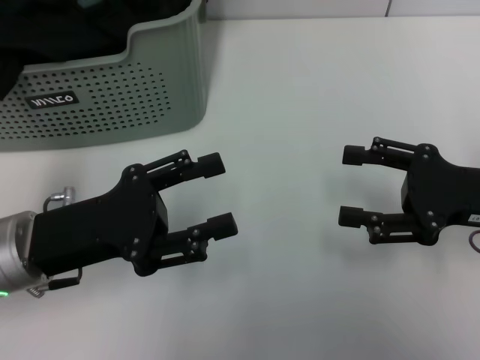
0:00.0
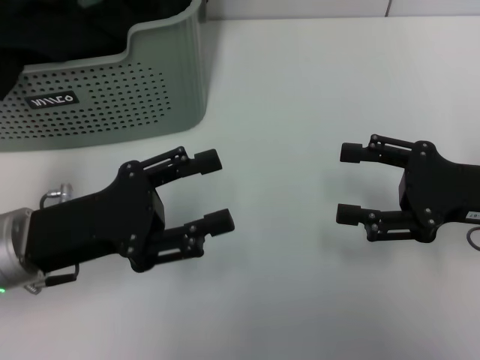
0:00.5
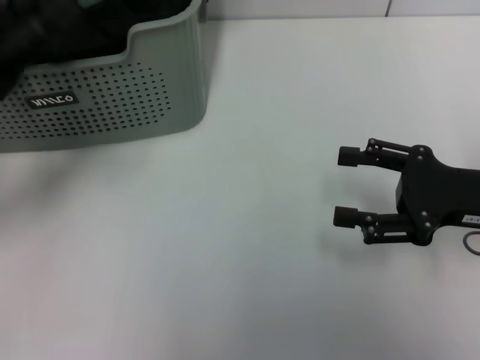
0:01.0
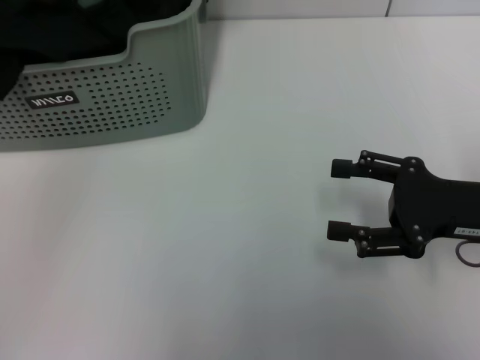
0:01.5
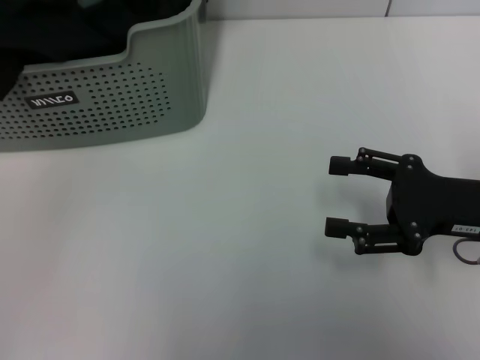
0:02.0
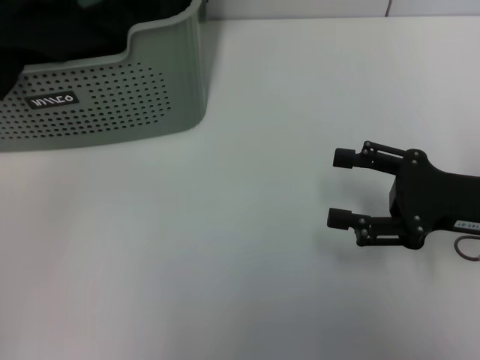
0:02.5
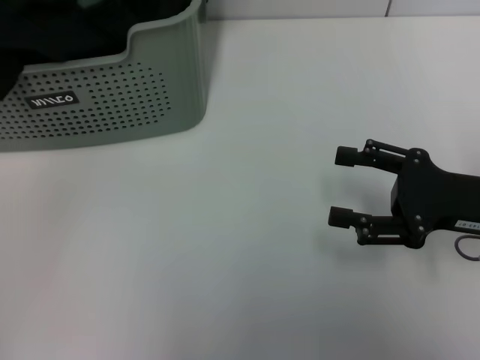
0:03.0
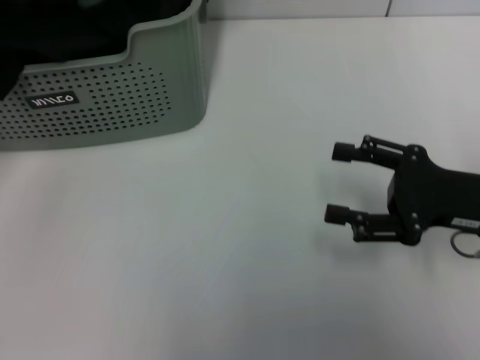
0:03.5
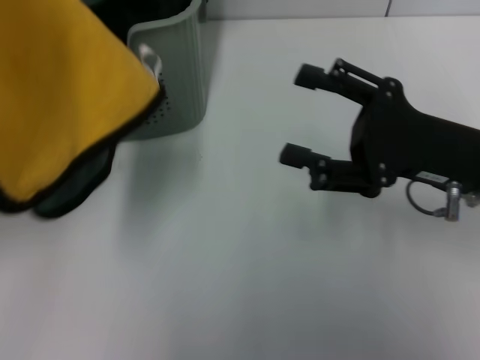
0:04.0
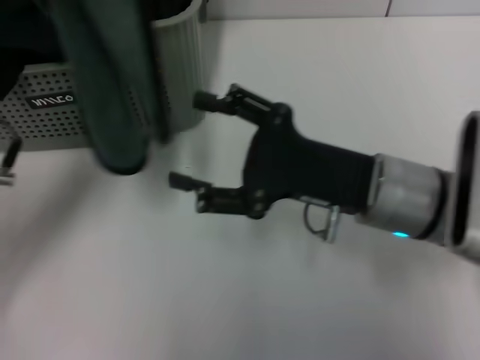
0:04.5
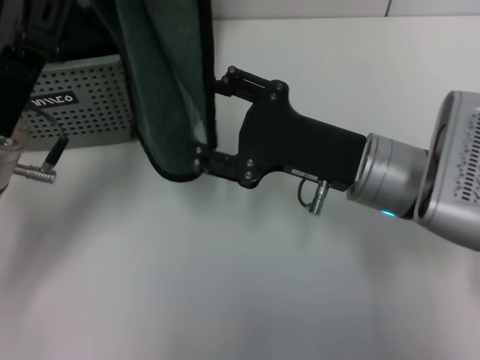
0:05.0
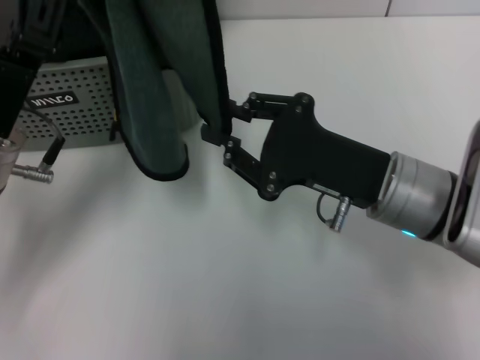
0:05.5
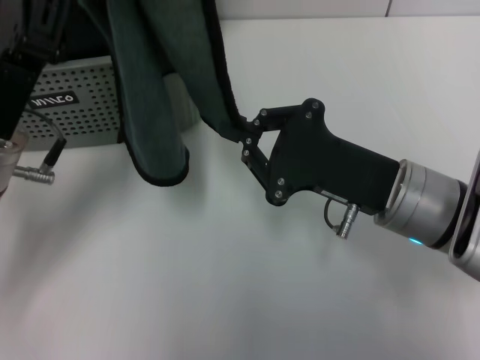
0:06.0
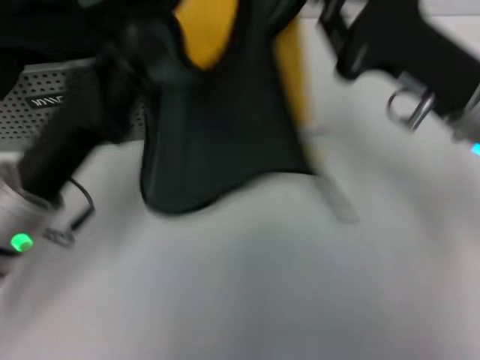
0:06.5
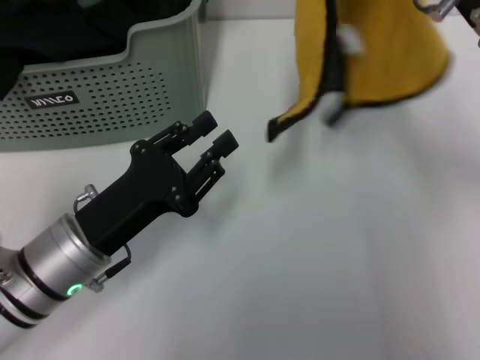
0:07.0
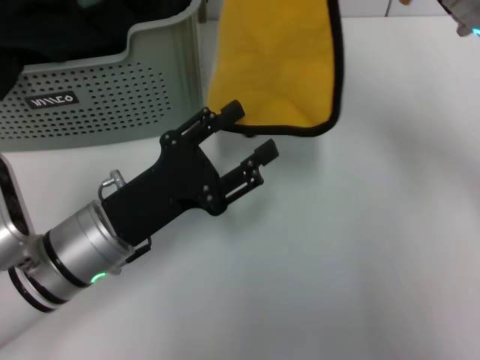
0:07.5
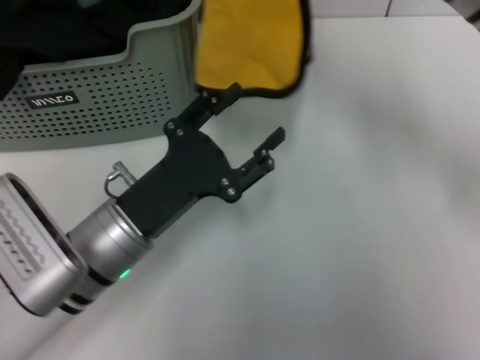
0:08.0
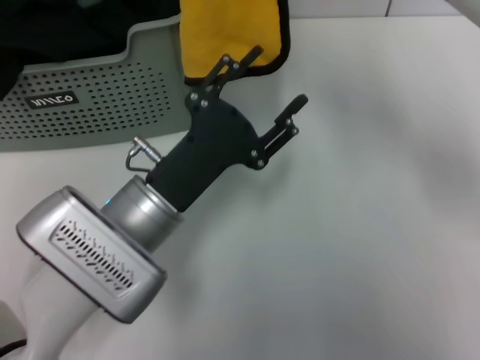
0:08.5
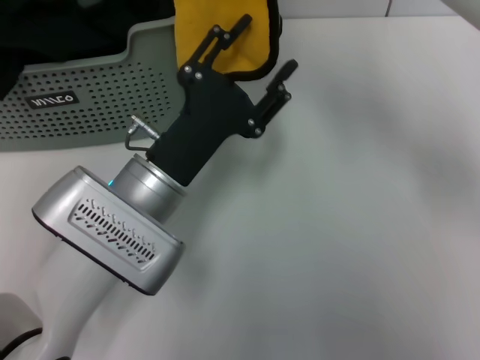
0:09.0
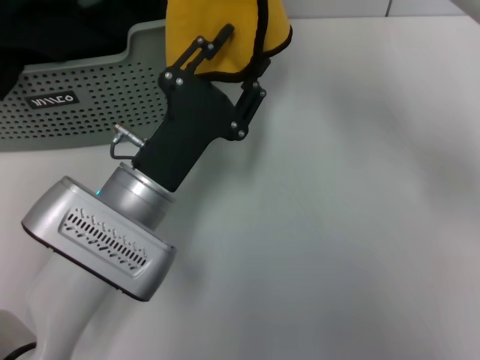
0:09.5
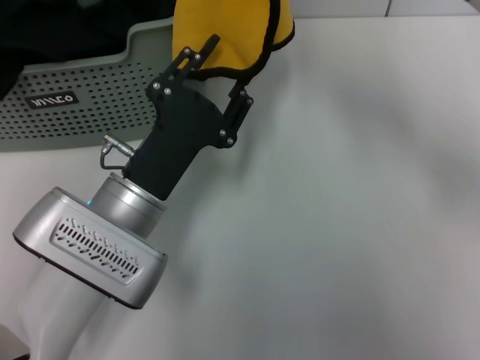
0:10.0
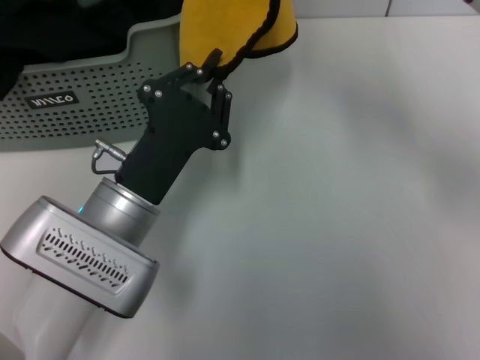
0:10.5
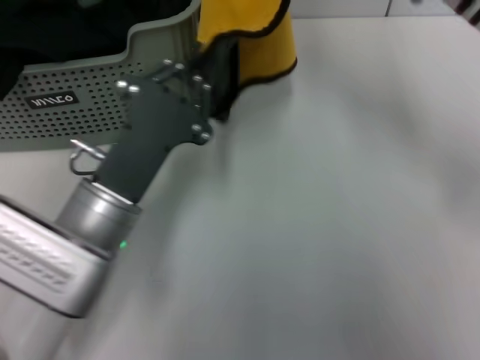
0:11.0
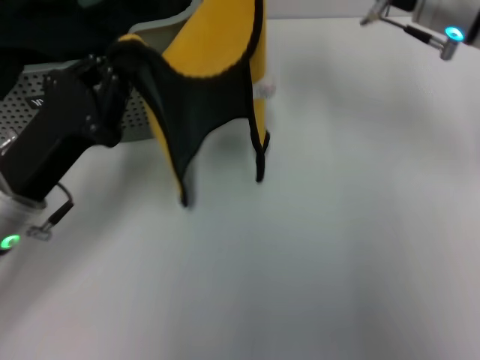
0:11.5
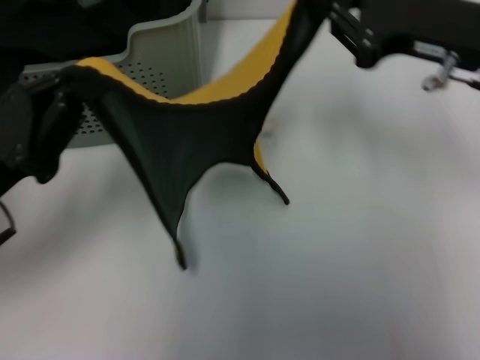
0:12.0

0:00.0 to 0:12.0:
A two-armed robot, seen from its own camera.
Task of the whole recording: pick up the towel from the storage box and lay it flat on the table.
Step, 0:00.0 to 0:02.5: Pick up a towel with the left gripper.
Step, 0:03.0 to 0:05.5: Spread the towel flat with the left gripper.
0:00.0 to 0:02.0: The left gripper is displaced to the left, forward and upward by approximately 20 cm.
0:02.0 to 0:04.0: The left gripper moves backward and to the right, about 15 cm, and closes its fingers. Meanwhile the right gripper ends up approximately 5 cm from where it was.
0:04.0 to 0:06.0: The right gripper goes approximately 5 cm to the left, and closes up. Meanwhile the left gripper heads to the right and downward, covering about 10 cm.
0:06.0 to 0:08.0: The left gripper travels downward and to the right by approximately 10 cm, and opens; the right gripper is displaced upward and forward by some 15 cm.
0:08.0 to 0:10.0: The left gripper closes up.
0:10.0 to 0:12.0: The left gripper heads to the left, covering roughly 15 cm, and closes. Meanwhile the right gripper travels to the right and downward by about 10 cm.
